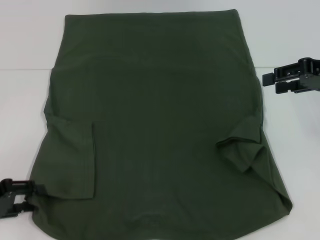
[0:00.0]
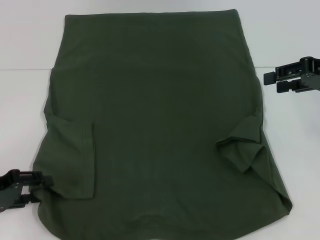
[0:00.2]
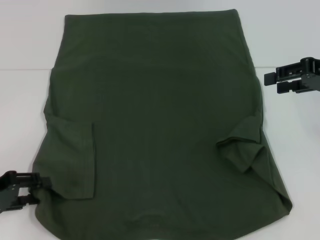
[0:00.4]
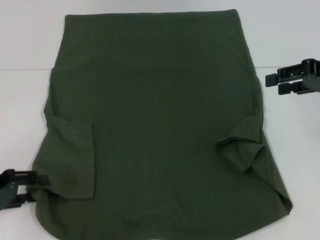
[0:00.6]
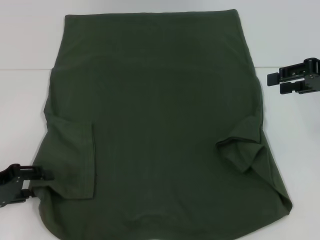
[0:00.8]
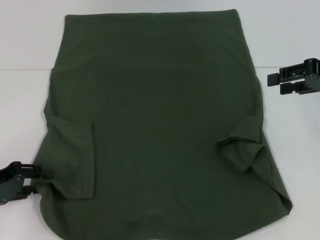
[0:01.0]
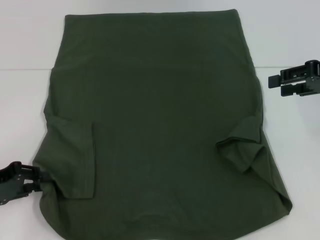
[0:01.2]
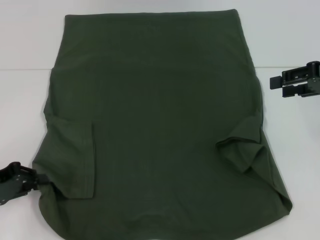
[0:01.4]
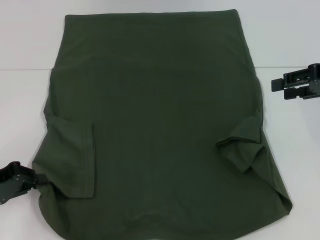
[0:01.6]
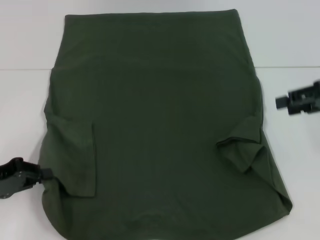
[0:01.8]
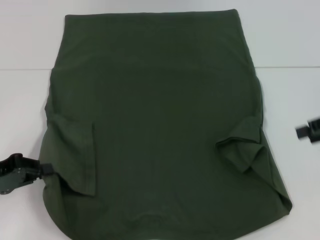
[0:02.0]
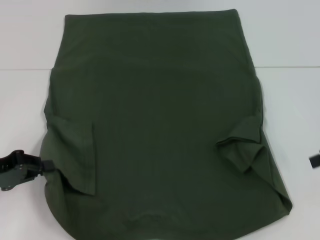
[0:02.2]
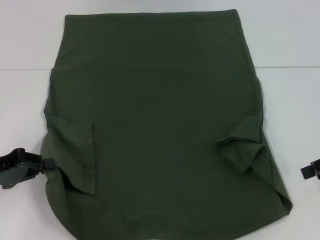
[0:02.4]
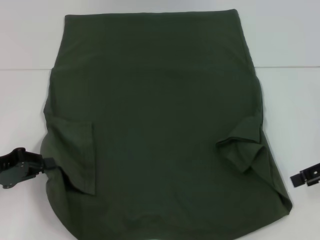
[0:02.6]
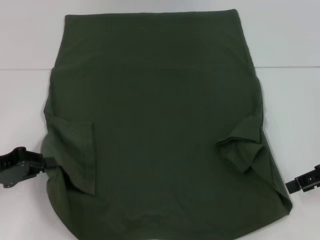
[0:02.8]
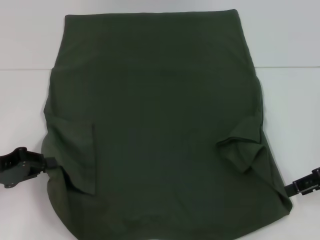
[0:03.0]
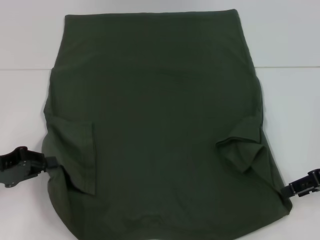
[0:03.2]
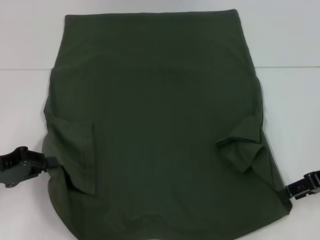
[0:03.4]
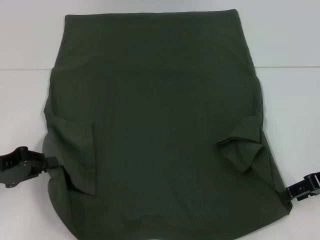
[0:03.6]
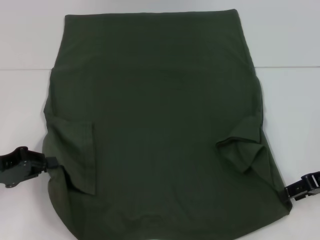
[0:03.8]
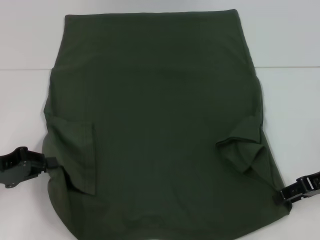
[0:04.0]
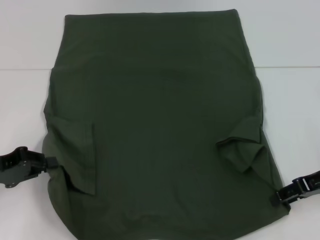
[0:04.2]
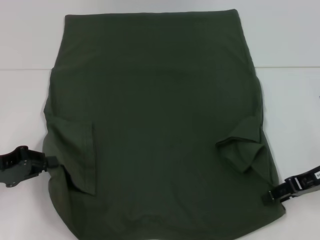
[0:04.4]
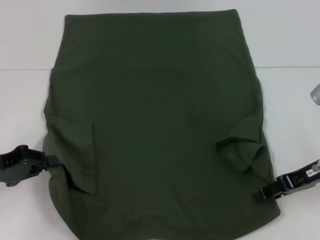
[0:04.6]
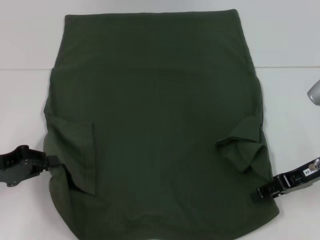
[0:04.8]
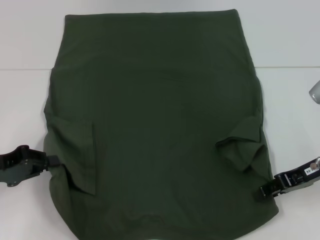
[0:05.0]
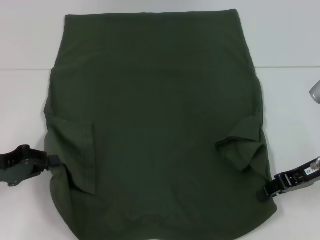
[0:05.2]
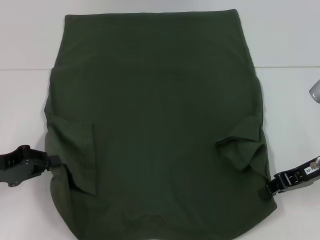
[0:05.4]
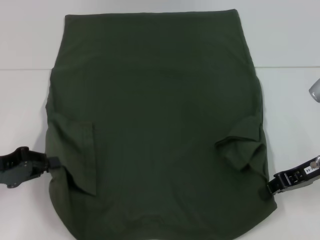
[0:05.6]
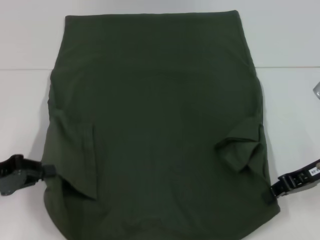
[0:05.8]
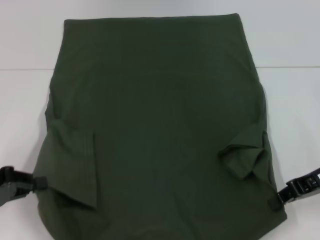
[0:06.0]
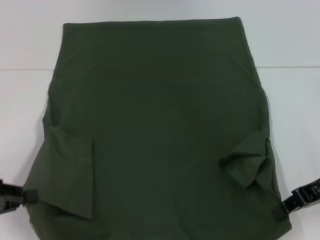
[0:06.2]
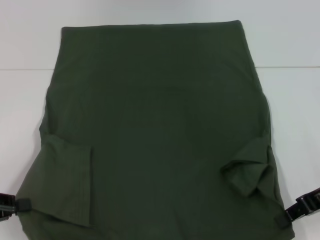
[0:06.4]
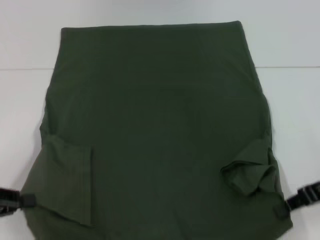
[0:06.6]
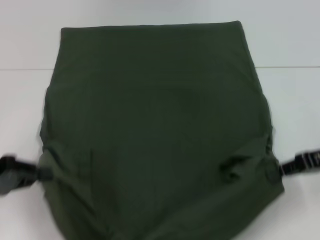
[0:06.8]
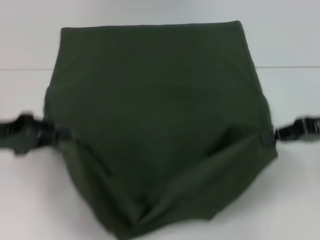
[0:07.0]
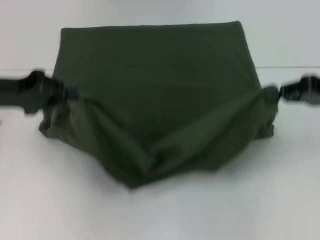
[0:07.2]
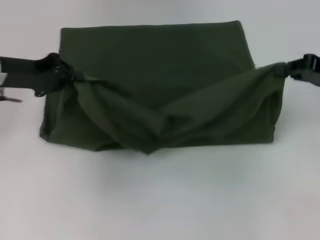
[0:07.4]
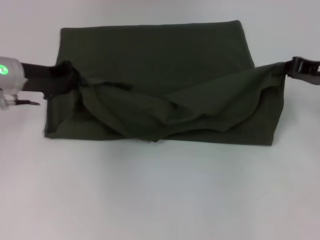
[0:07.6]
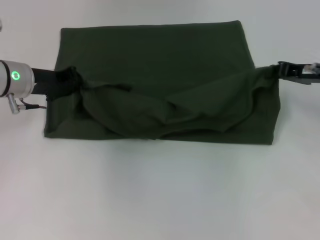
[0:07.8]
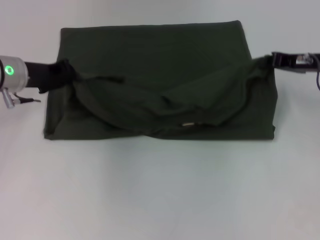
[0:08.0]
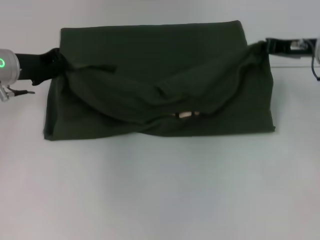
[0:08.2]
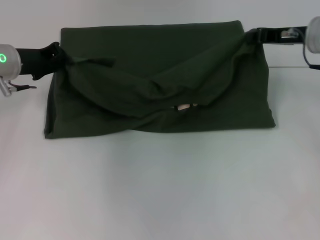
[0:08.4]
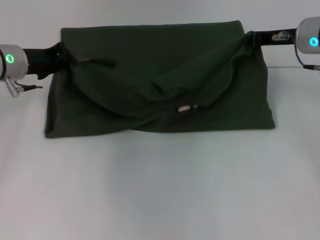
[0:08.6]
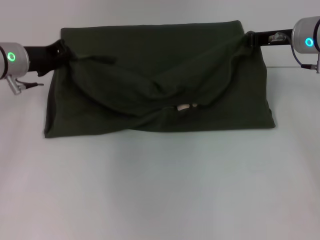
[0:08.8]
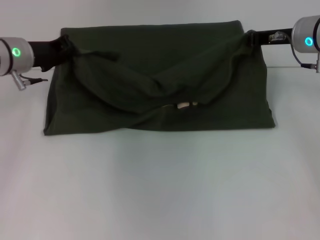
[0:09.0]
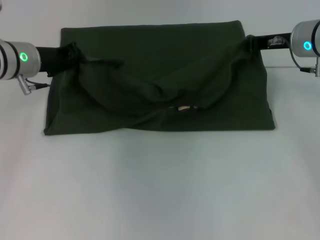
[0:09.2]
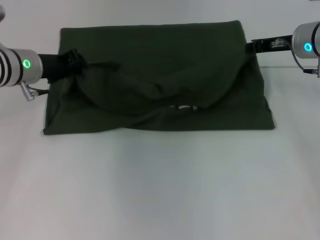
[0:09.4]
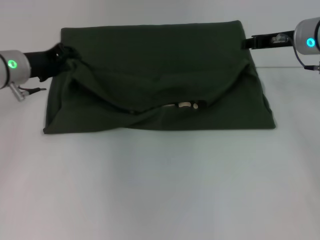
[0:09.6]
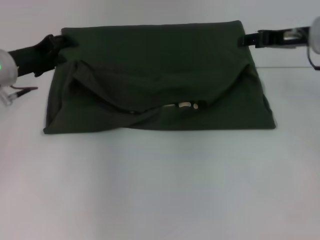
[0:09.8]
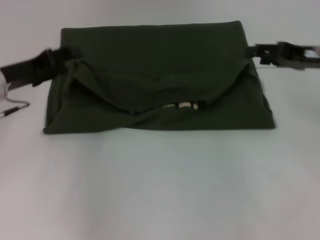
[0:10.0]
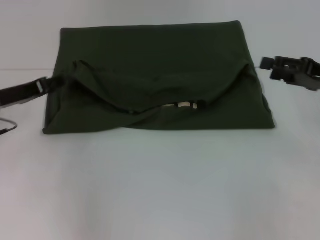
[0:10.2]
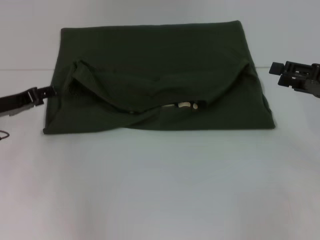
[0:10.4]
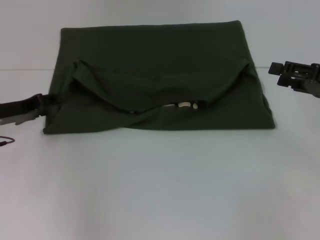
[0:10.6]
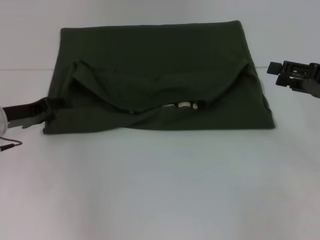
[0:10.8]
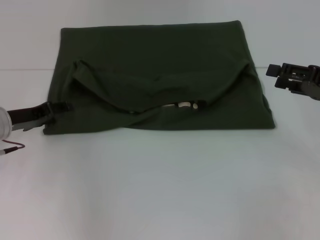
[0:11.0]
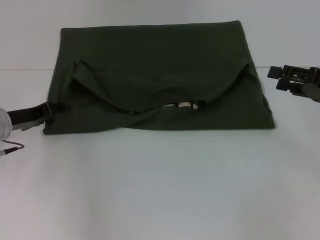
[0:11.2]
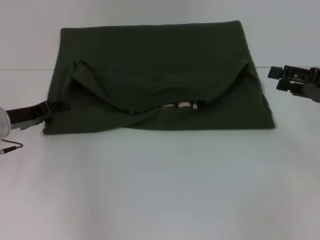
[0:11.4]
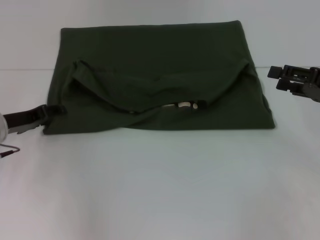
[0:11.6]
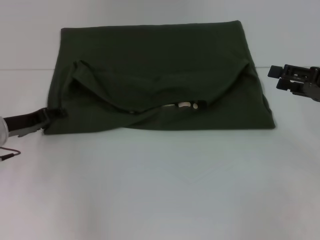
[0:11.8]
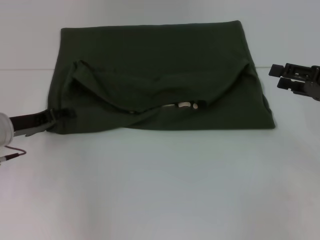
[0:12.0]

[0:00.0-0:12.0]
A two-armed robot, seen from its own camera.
Step, 0:01.8 to 0:05.4: Grab the bottom right corner with your right hand.
Step, 0:05.6 to 0:09.8: Fold the clothes with your left hand.
Step, 0:05.6 to 0:09.8: Fold the clothes with your right hand.
0:00.0 to 0:01.6: The left gripper closes up.
0:01.6 to 0:03.0: The right gripper is displaced downward and backward by about 10 cm.
0:03.0 to 0:04.4: The grippers make only small movements.
0:04.4 to 0:06.0: The right gripper closes its fingers.
0:06.0 to 0:07.6: The right gripper travels forward by some 10 cm. Meanwhile the left gripper heads forward and to the right, covering about 20 cm.
0:07.6 to 0:09.0: The right gripper is displaced to the left and forward by about 10 cm.
0:09.0 to 0:10.4: The left gripper heads backward, to the left and downward, covering some 10 cm, and opens up; the right gripper shifts about 15 cm backward and to the right, and opens up.
0:10.4 to 0:12.0: The grippers move only a little.

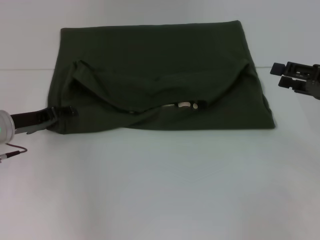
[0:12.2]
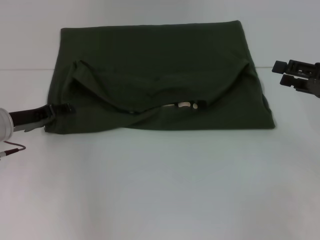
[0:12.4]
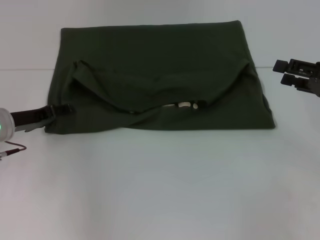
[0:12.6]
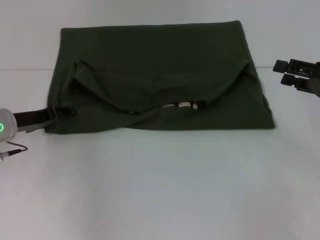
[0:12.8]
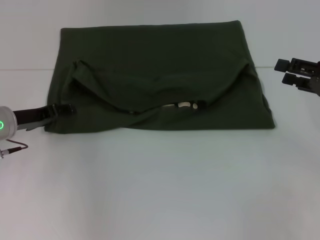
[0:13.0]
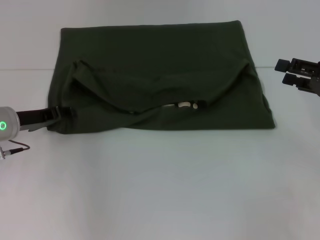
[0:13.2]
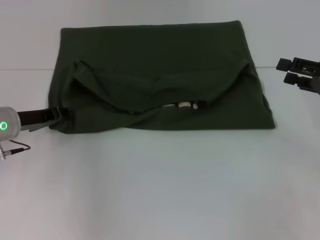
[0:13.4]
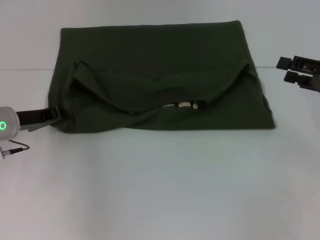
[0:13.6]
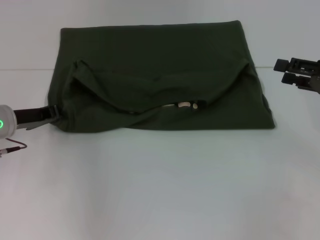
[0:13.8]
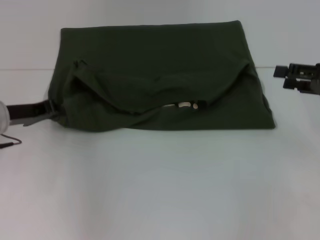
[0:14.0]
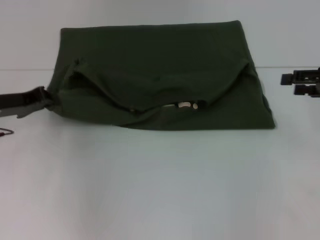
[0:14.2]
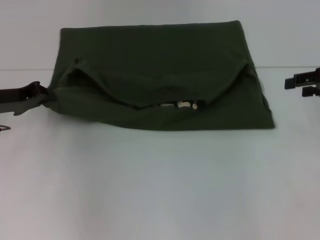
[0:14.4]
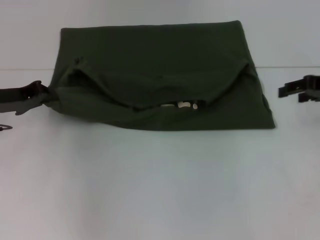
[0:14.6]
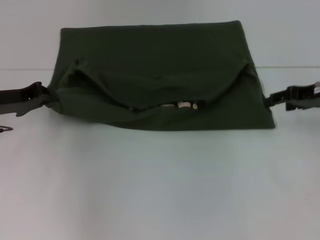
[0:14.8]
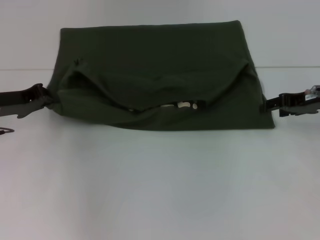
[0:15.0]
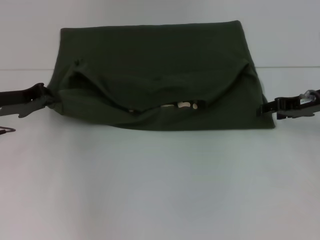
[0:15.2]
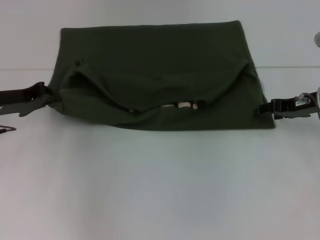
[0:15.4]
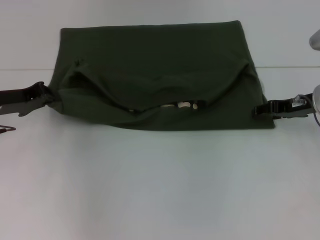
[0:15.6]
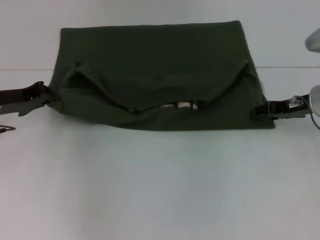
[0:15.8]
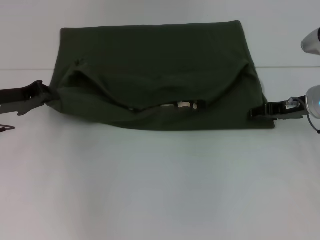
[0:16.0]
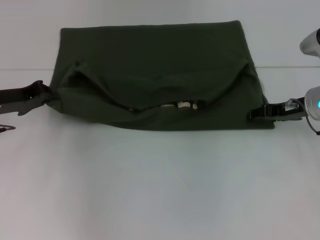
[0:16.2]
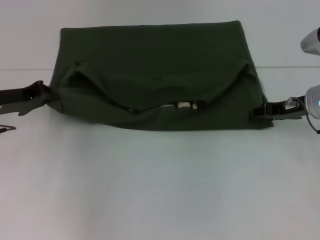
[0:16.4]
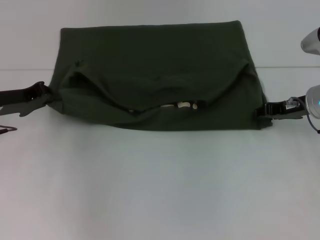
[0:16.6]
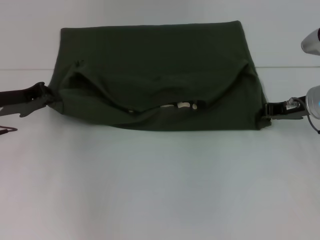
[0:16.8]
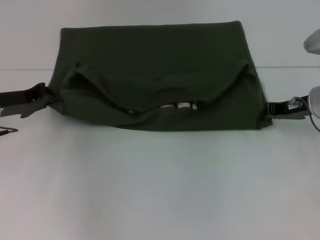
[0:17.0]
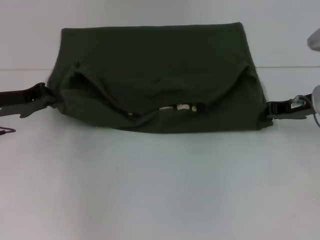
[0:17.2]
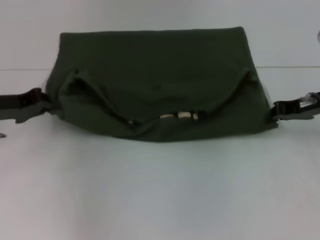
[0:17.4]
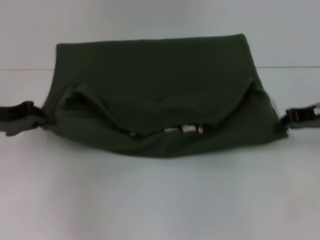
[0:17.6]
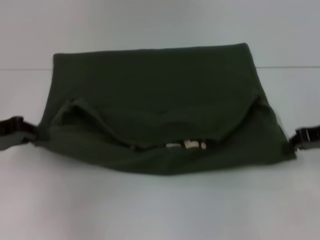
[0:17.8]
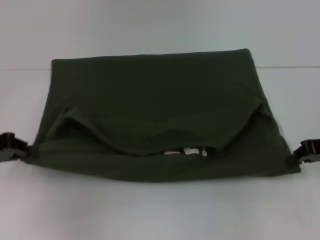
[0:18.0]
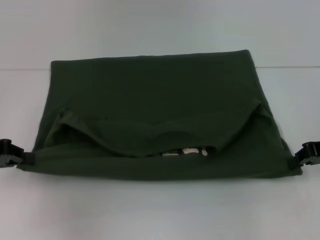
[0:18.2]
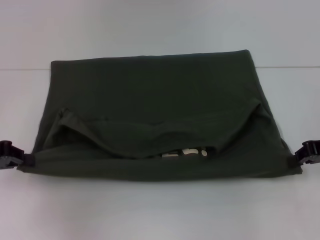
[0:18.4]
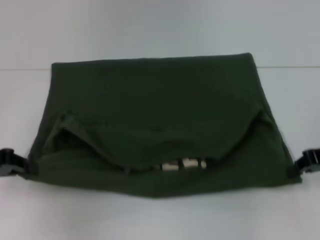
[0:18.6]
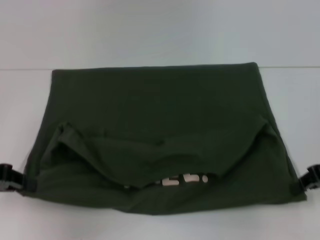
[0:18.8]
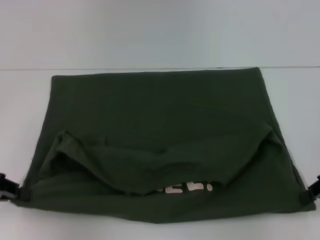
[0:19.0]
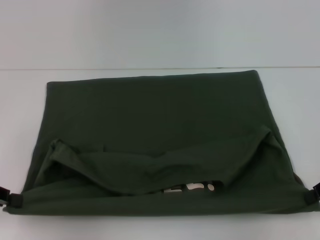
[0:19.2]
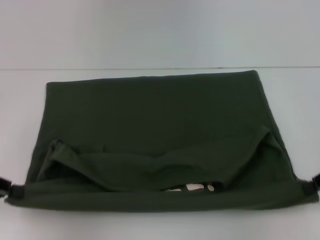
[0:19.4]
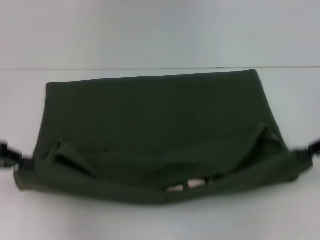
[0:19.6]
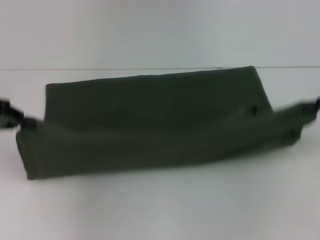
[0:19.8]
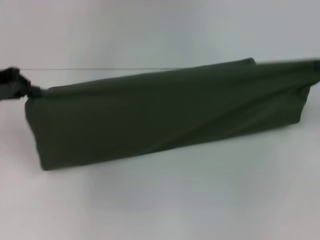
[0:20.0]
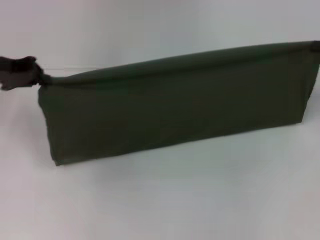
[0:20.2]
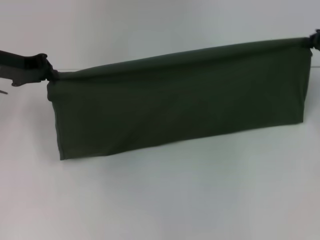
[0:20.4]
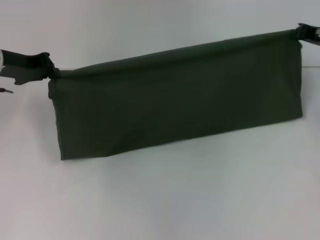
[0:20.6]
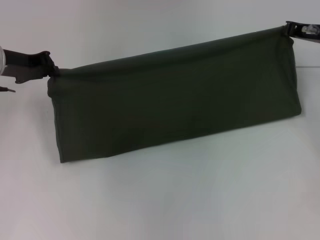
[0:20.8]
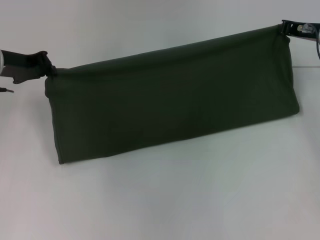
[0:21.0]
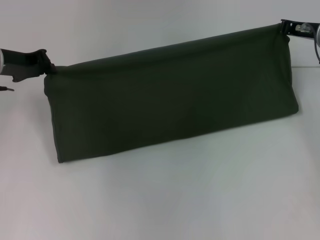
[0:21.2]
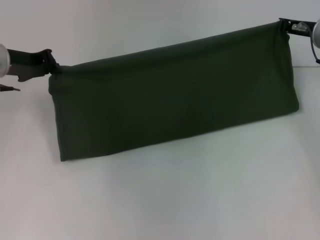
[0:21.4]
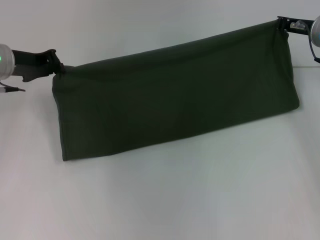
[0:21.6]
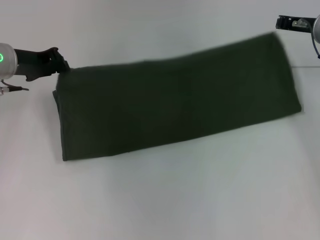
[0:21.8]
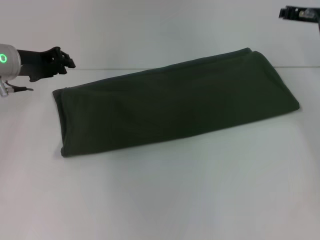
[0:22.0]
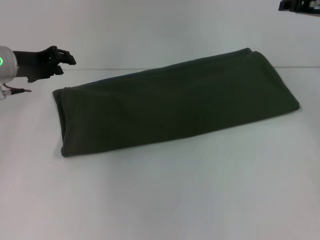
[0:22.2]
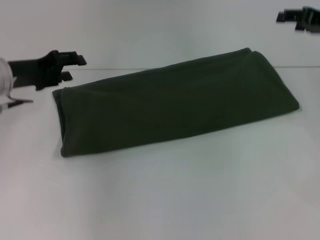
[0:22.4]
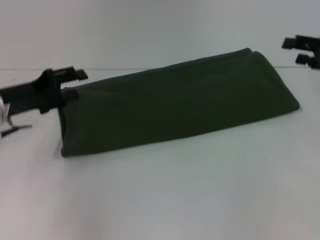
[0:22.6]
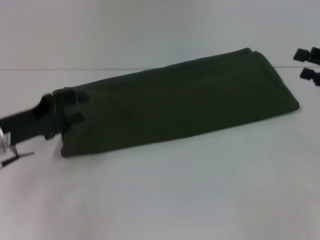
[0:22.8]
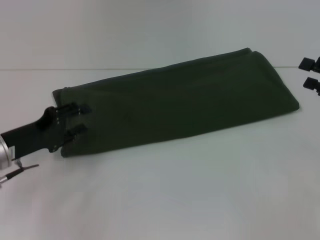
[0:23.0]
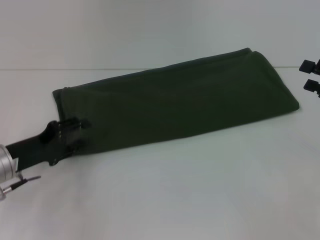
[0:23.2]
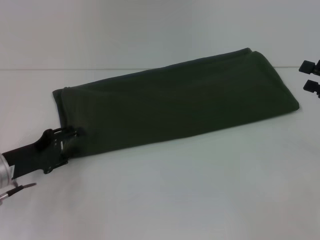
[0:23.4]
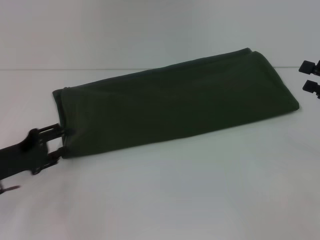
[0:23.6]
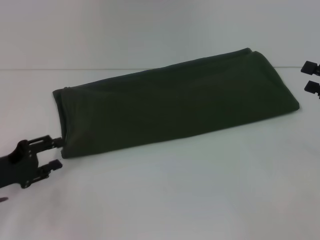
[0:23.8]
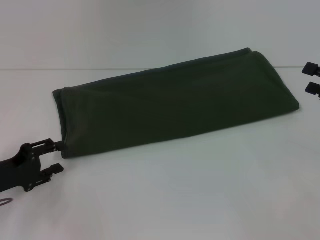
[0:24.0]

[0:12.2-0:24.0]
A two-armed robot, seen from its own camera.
Step, 0:12.2 to 0:19.2: Pull the clothes with your left hand.
Step, 0:12.2 to 0:19.2: Pull the clothes with your right hand.
Step, 0:19.4 to 0:22.0: Fold the clothes with your right hand.
0:12.2 to 0:13.6: The left gripper closes up.
0:13.6 to 0:15.2: The right gripper shifts approximately 10 cm forward and to the left.
0:15.2 to 0:16.6: The grippers move only a little.
0:16.6 to 0:18.2: The left gripper travels backward by approximately 10 cm, while the right gripper is displaced backward and to the right by about 10 cm, and closes its fingers.
0:18.2 to 0:19.6: There are only small adjustments of the grippers.
0:19.6 to 0:21.0: The right gripper is displaced forward and to the left by about 15 cm, while the left gripper travels forward and to the right by about 15 cm.
0:21.0 to 0:22.6: The right gripper travels backward and to the right by roughly 10 cm, and opens its fingers. Meanwhile the left gripper is displaced backward by approximately 10 cm, and opens.
0:22.6 to 0:24.0: The right gripper heads backward, covering approximately 5 cm. Meanwhile the left gripper is displaced backward and downward by about 10 cm.
